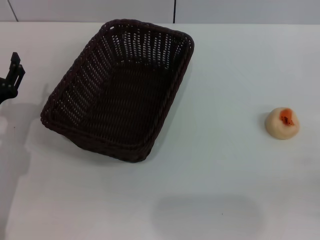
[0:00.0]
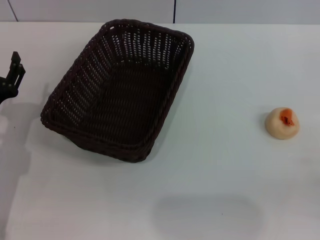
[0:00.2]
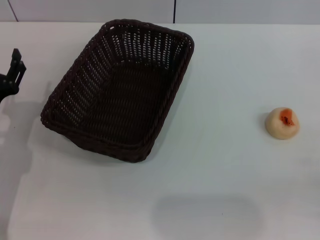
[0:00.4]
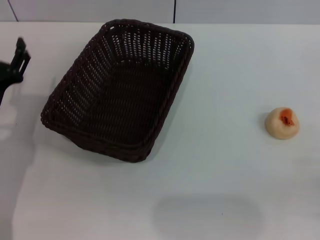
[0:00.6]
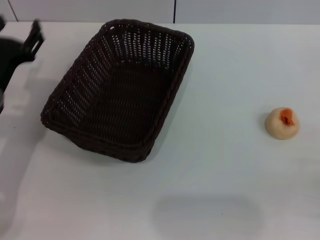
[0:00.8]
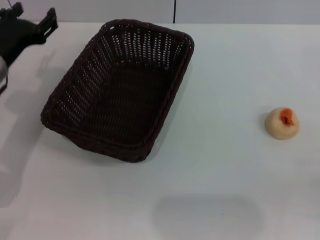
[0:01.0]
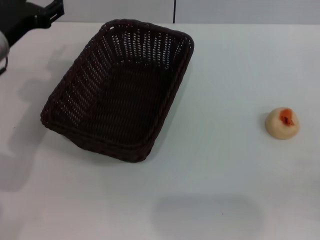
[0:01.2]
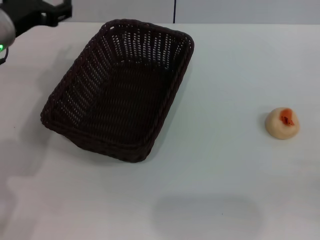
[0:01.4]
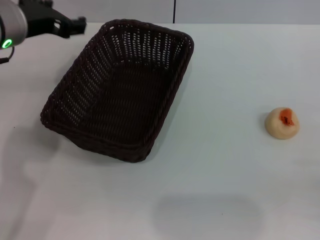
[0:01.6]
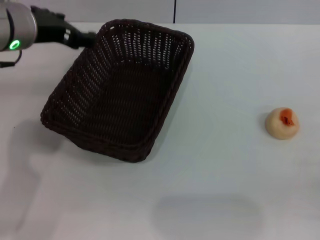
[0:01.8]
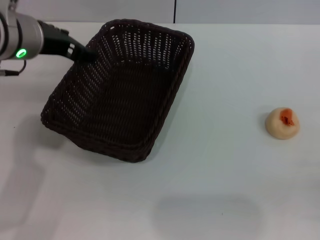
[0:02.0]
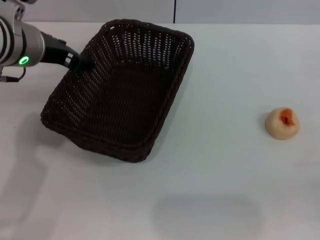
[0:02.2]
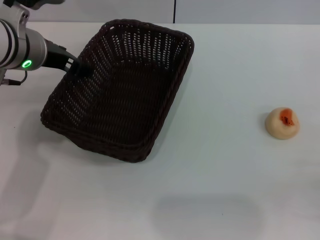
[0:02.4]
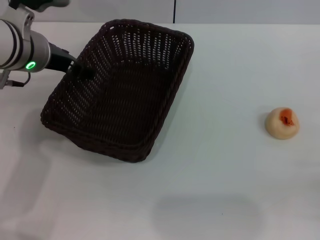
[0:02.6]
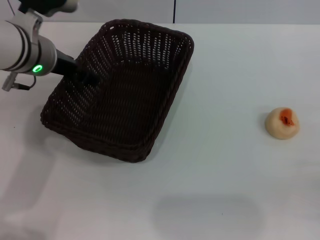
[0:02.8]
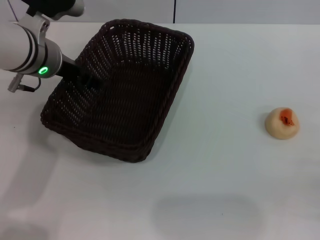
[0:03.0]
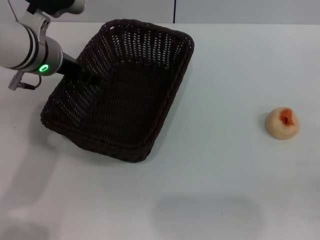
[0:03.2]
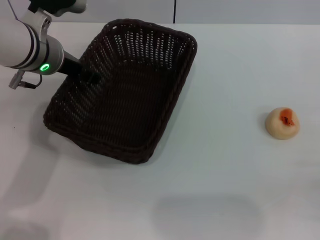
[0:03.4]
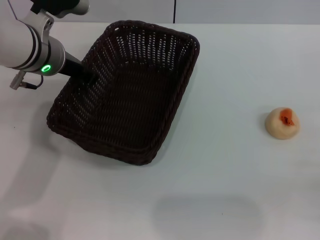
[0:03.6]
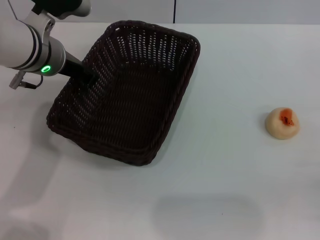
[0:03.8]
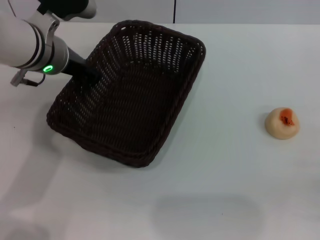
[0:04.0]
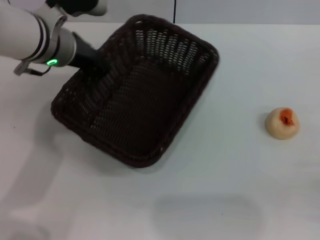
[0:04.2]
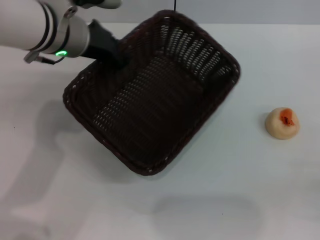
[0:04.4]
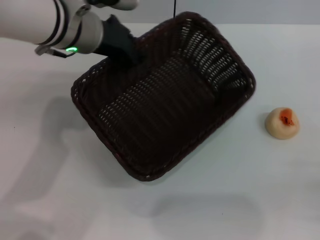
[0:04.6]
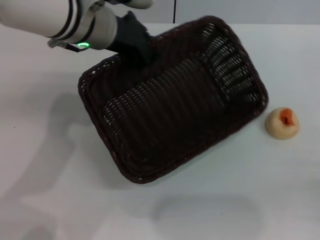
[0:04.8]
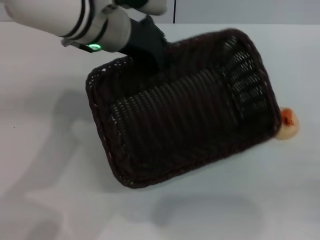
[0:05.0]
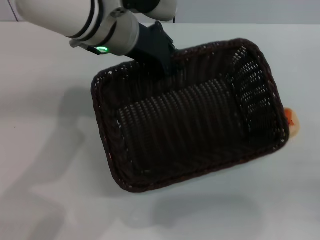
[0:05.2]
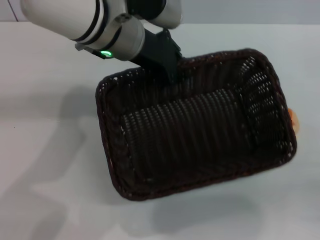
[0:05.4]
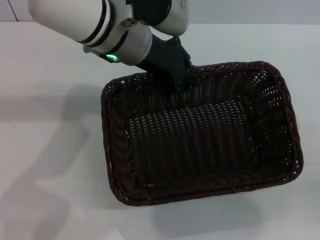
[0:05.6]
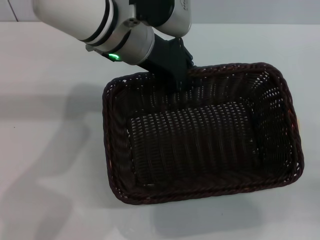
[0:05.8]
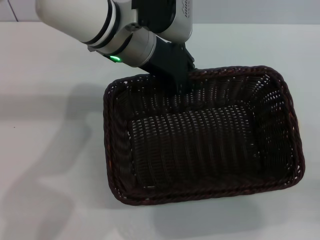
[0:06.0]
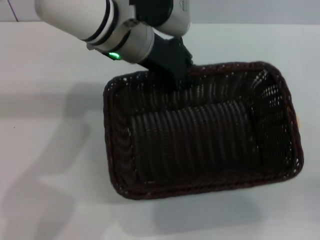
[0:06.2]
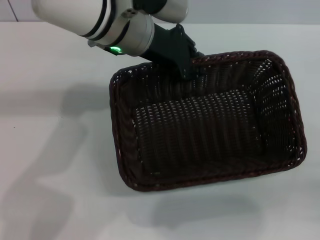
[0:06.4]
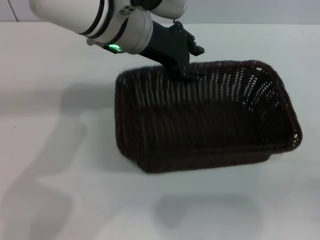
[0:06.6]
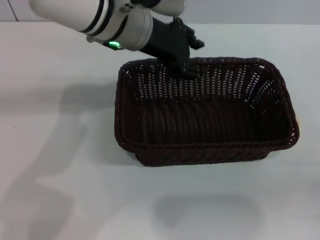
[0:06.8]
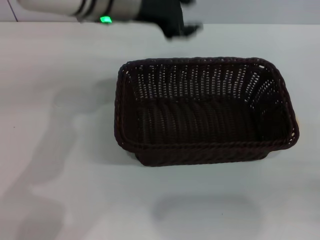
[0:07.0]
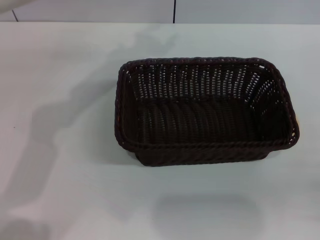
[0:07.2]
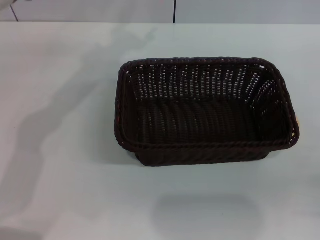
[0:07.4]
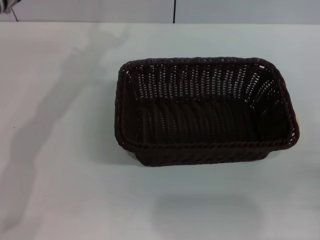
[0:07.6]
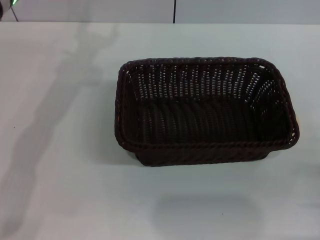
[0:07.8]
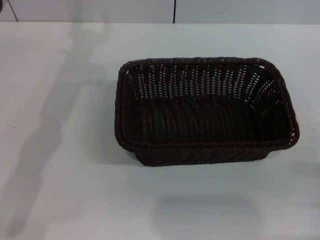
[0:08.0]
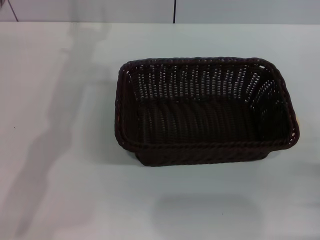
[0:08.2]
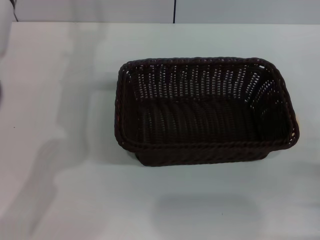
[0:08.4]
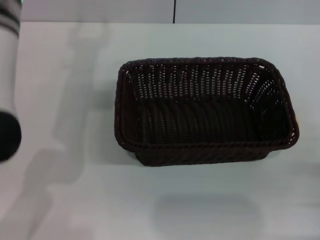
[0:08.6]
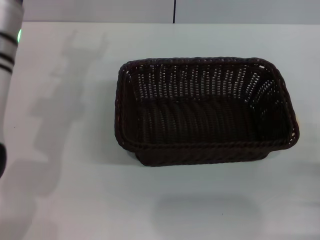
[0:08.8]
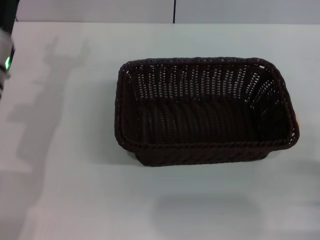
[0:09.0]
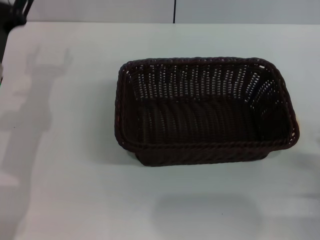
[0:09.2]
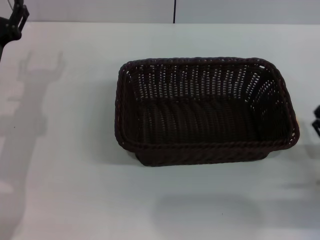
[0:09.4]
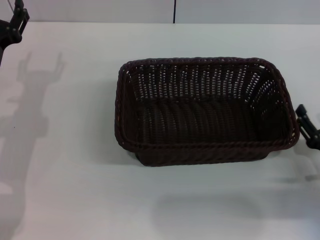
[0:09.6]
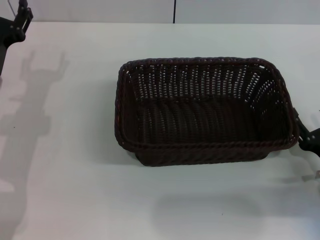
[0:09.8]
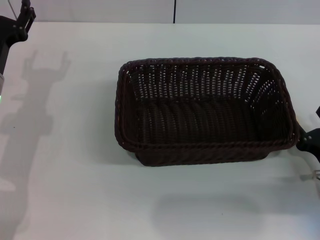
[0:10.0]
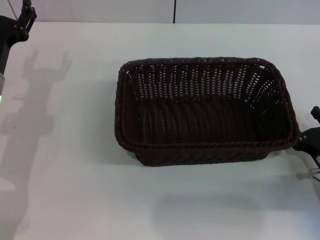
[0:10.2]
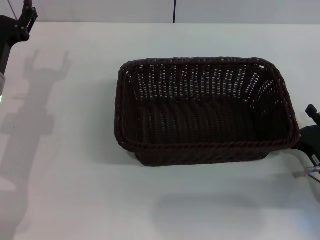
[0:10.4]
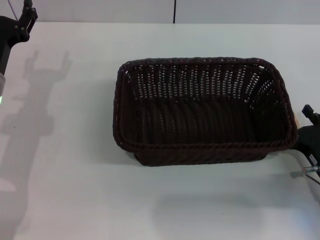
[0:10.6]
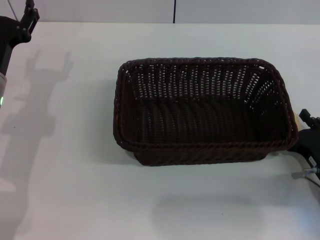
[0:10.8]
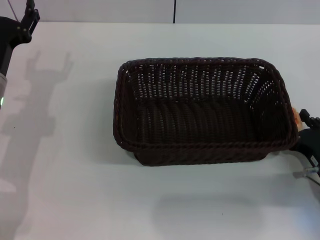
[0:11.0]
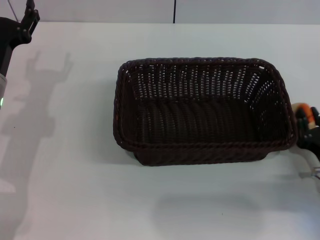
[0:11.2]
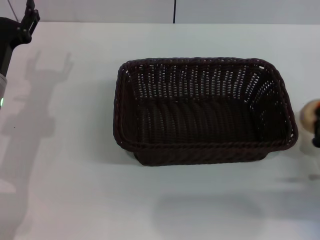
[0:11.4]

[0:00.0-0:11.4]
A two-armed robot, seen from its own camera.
Step, 0:00.0 to 0:06.8: Move the basket to the center of view with the left gripper.
Step, 0:07.0 to 0:11.4: Pick up the egg yolk pastry with the right gripper.
0:00.0 to 0:01.4: The left gripper shifts some 20 cm upward and forward.
0:01.4 to 0:02.8: The left gripper moves approximately 5 cm.
0:02.8 to 0:04.2: The left gripper closes.
0:04.2 to 0:05.6: The left gripper travels to the right by approximately 10 cm.
0:05.6 to 0:07.2: The left gripper shifts about 5 cm to the left, and opens.
0:07.2 to 0:08.6: The left gripper travels backward by some 5 cm, and opens up.
0:08.6 to 0:10.0: The left gripper moves downward and to the left, some 15 cm. The right gripper heads forward, covering some 5 cm.
0:10.0 to 0:11.4: The right gripper closes.

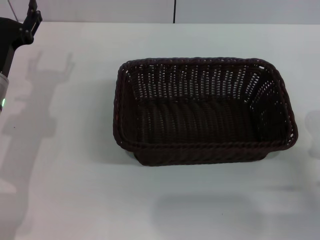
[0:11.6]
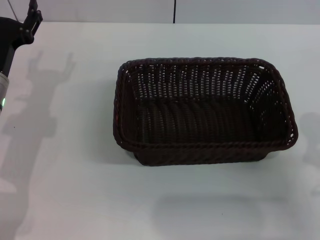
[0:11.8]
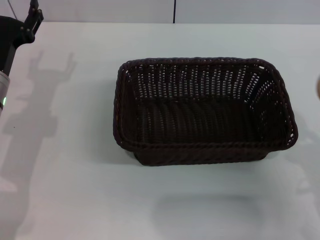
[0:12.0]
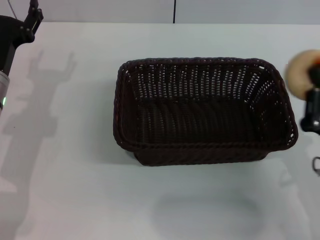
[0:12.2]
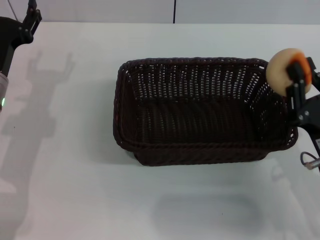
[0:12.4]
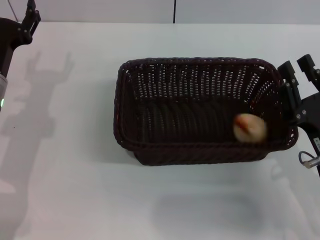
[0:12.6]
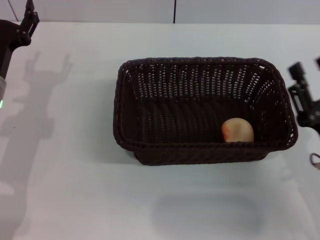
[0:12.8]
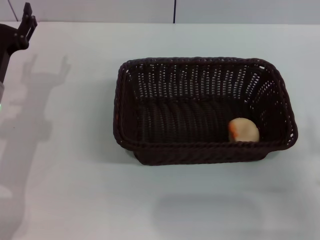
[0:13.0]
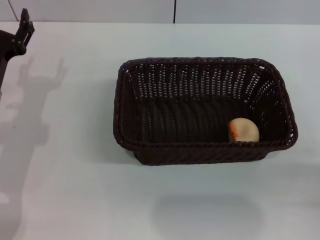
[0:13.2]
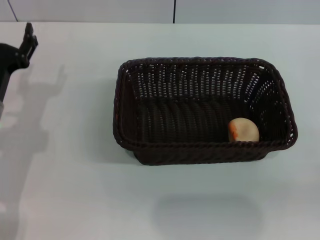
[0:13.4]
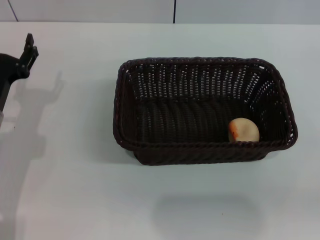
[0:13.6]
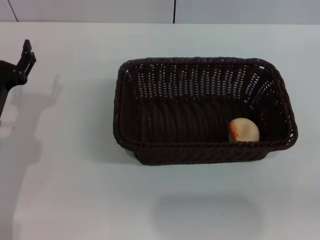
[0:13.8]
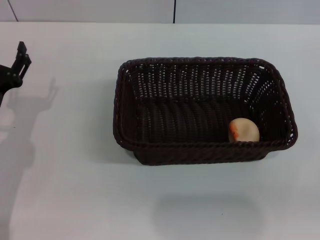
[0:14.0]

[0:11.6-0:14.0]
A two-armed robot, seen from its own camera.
Step, 0:11.6 to 0:12.6: Place the egg yolk pastry into the basket with the right gripper.
0:11.6 to 0:12.8: The right gripper moves roughly 5 cm.
0:12.8 to 0:14.0: The left gripper heads backward, covering some 5 cm. Meanwhile the right gripper heads to the right and backward, covering roughly 15 cm, and opens up.
